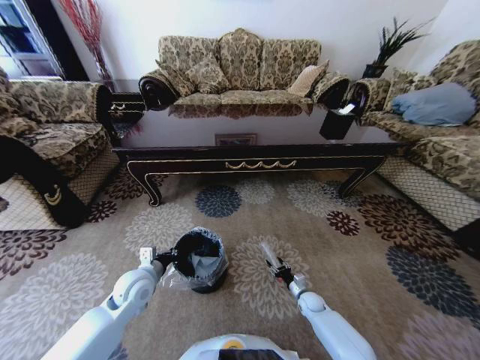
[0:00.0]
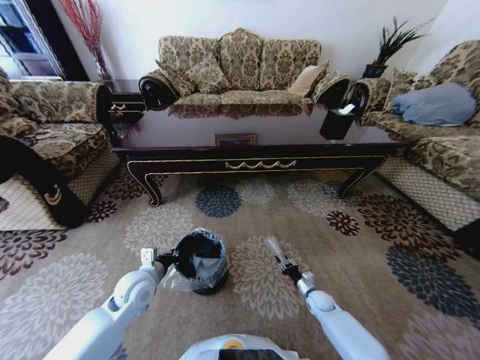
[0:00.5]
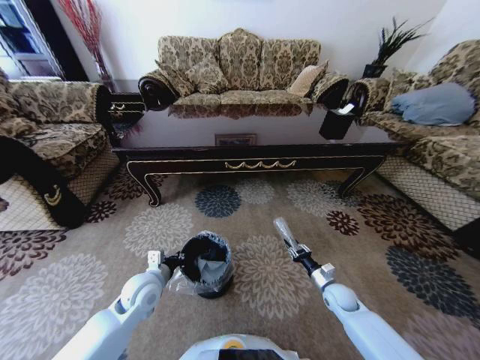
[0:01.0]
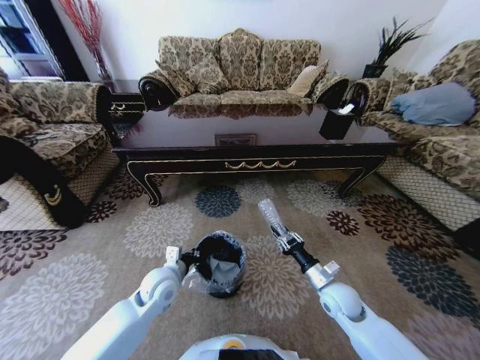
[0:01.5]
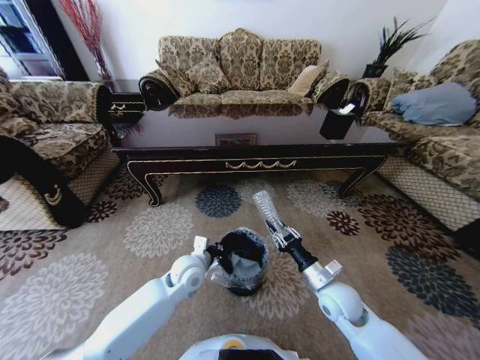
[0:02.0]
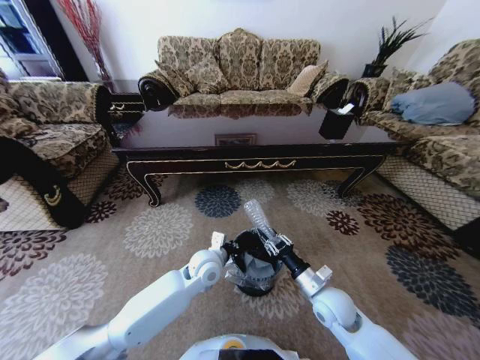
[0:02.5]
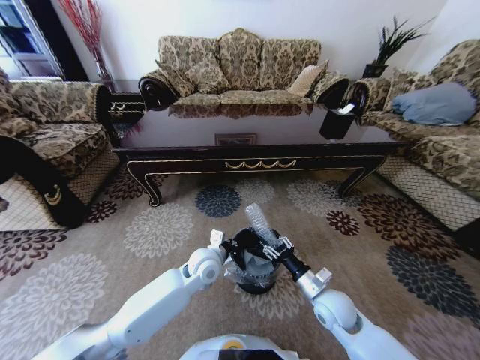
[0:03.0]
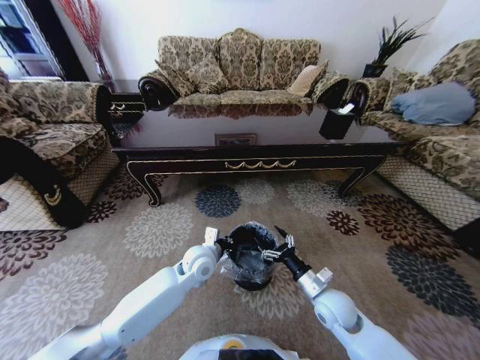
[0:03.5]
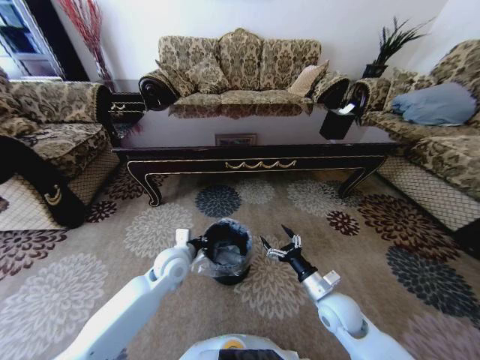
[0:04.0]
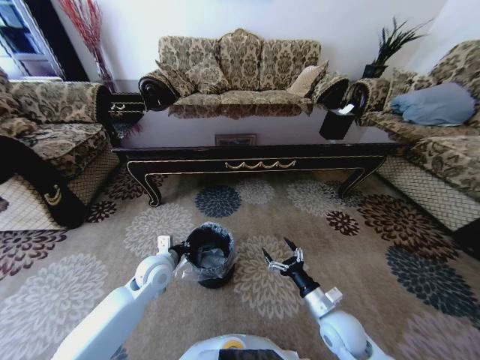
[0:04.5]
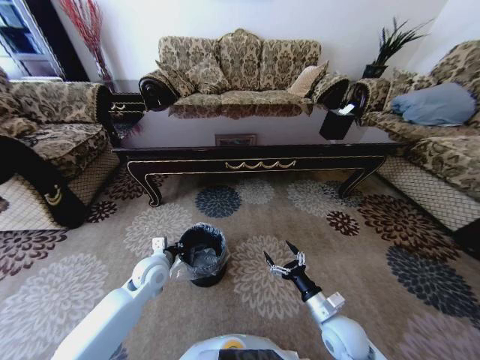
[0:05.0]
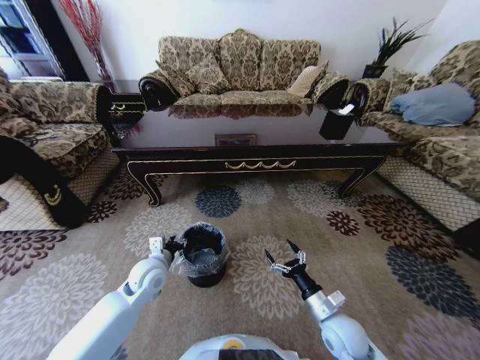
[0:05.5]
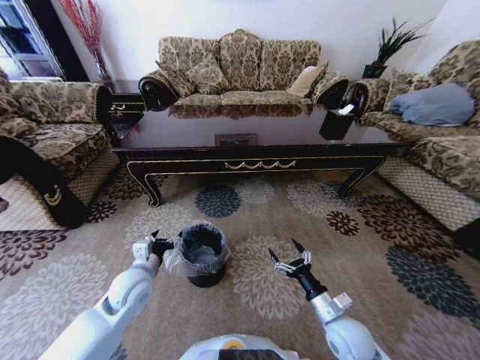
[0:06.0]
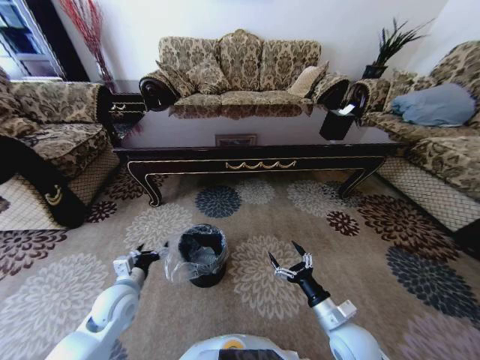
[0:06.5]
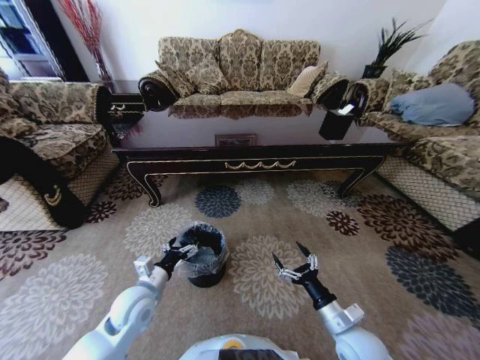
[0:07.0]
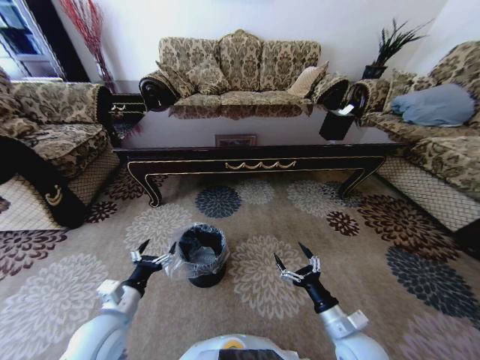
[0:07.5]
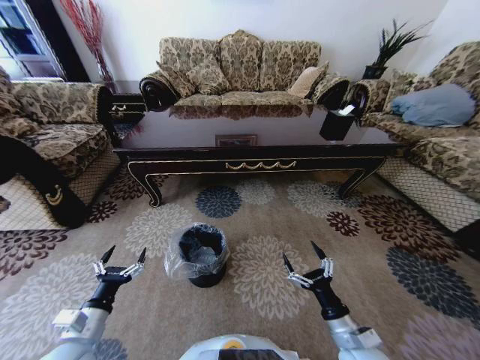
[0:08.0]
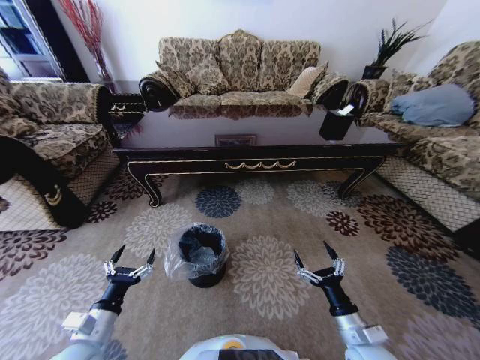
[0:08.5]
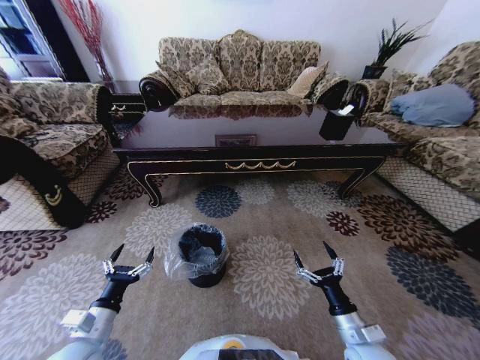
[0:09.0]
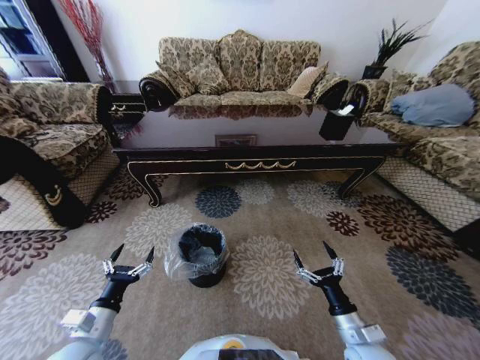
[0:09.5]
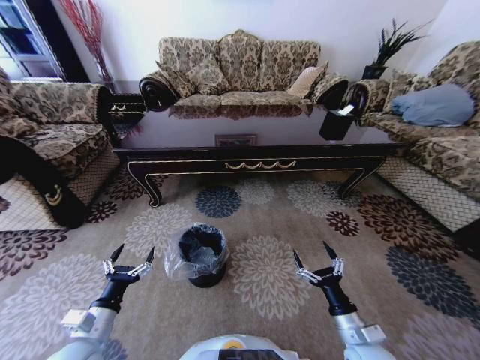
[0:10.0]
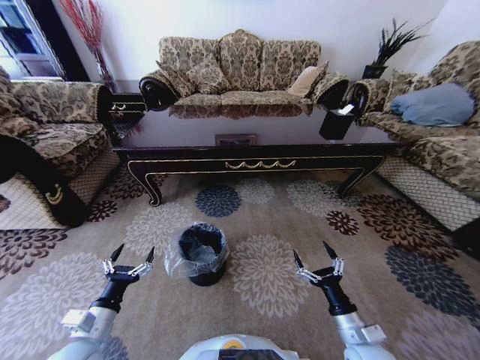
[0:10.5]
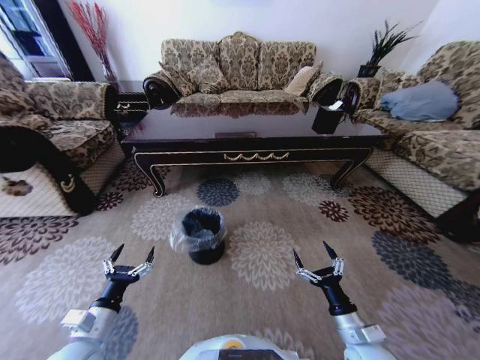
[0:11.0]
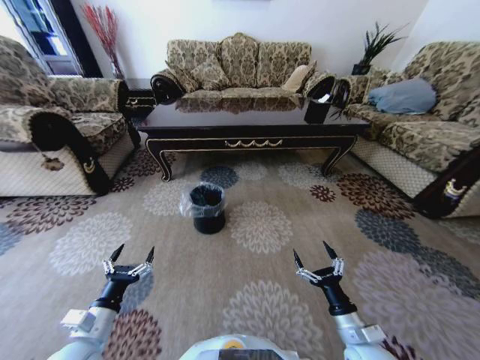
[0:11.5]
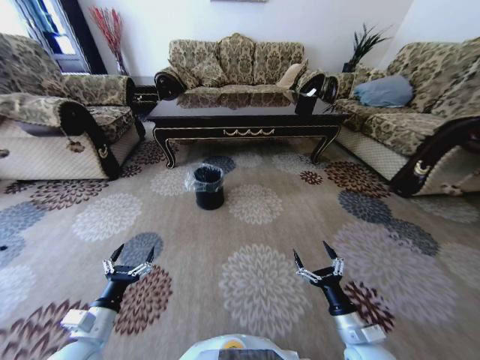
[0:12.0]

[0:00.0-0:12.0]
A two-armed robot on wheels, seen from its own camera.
Task of the whole recording: Move to the front of the table and pick up the trash from the floor, then place it into the trash bin.
0:00.0 to 0:02.0: The left gripper is displaced to the right by roughly 15 cm. The right gripper shifts some 25 cm upward.
0:02.0 to 0:04.0: The right gripper opens up.
0:04.0 to 0:06.0: The right gripper shifts approximately 5 cm backward. Meanwhile the left gripper goes some 10 cm to the left and backward, and opens up.
0:06.0 to 0:08.0: The left gripper moves backward and to the left, approximately 15 cm.
0:08.0 to 0:10.0: There are only small adjustments of the grippers.

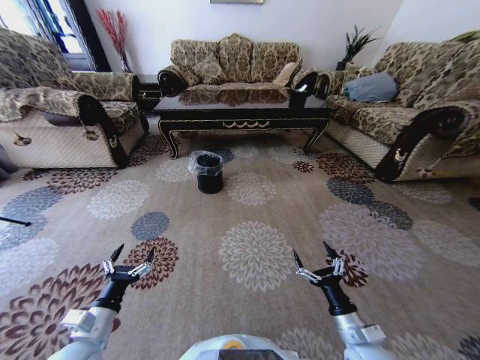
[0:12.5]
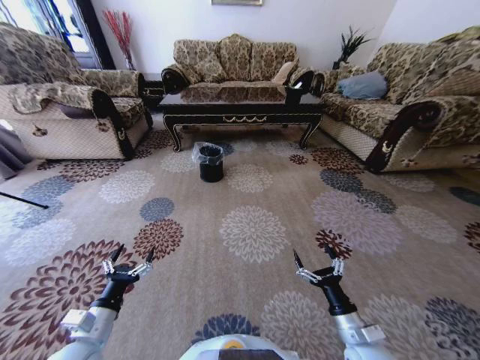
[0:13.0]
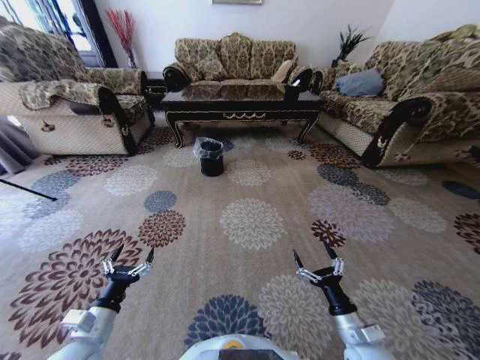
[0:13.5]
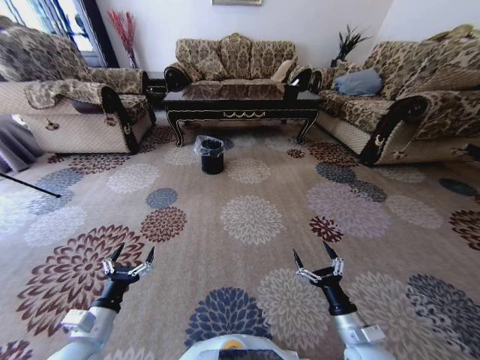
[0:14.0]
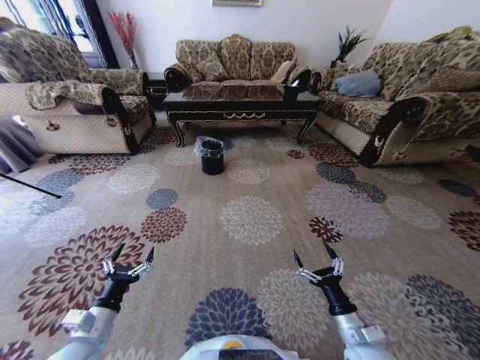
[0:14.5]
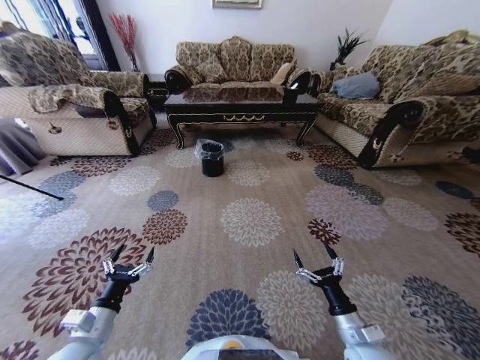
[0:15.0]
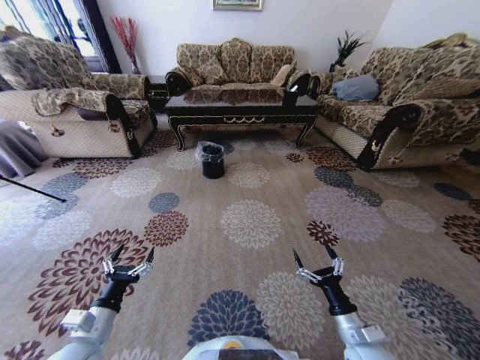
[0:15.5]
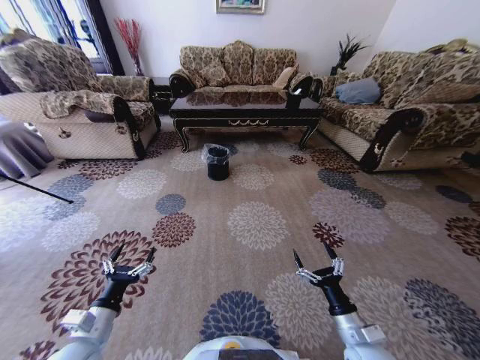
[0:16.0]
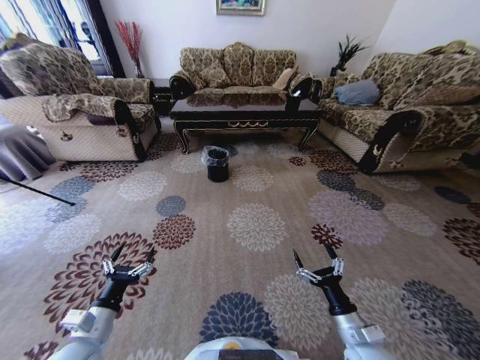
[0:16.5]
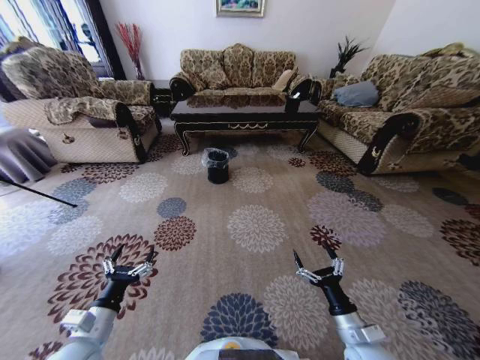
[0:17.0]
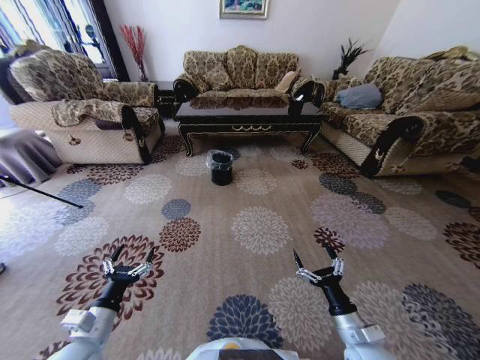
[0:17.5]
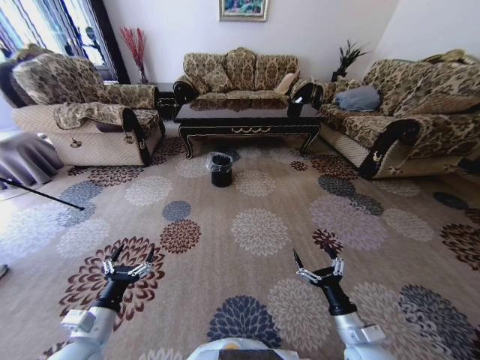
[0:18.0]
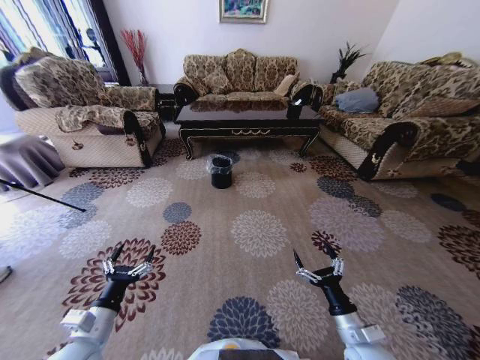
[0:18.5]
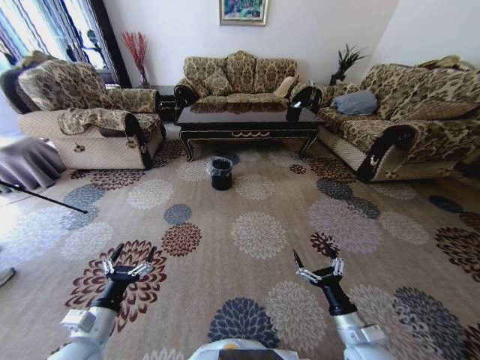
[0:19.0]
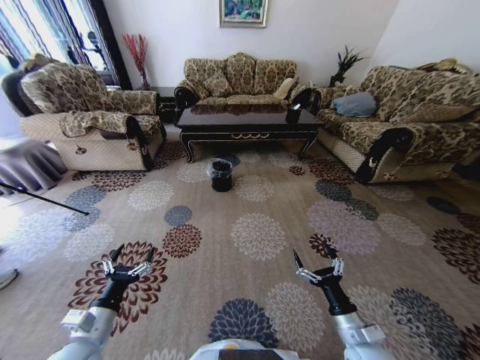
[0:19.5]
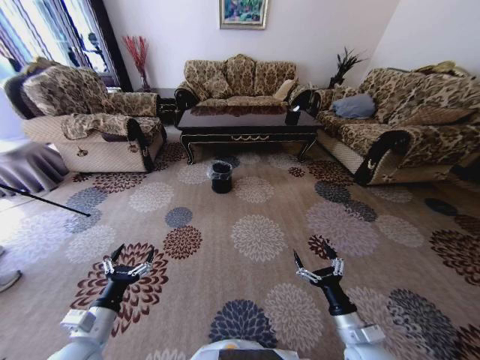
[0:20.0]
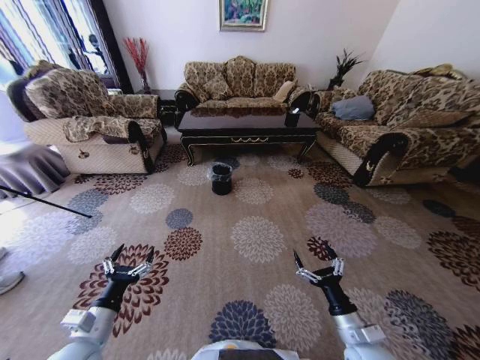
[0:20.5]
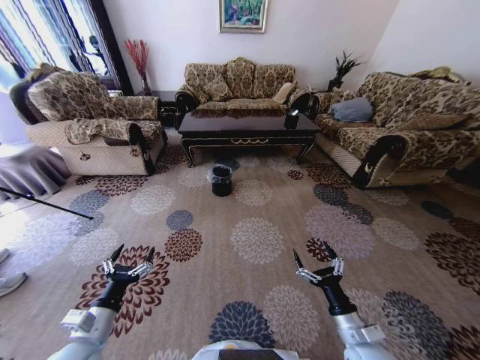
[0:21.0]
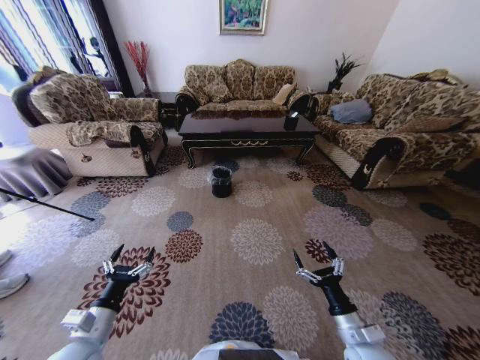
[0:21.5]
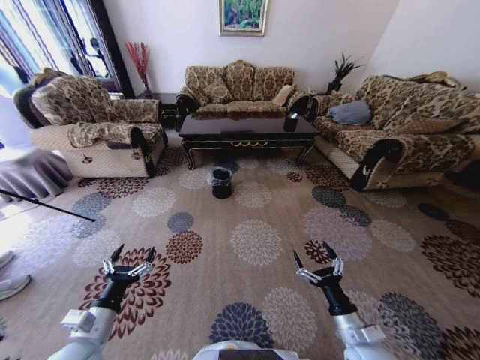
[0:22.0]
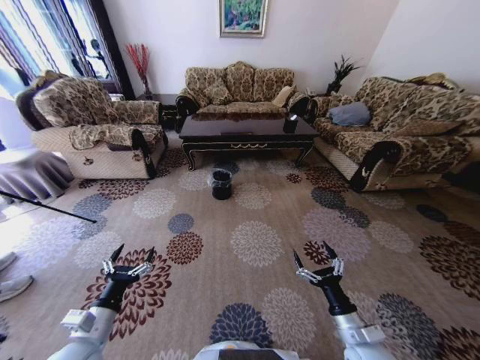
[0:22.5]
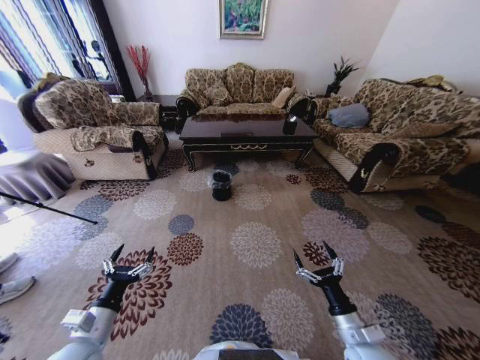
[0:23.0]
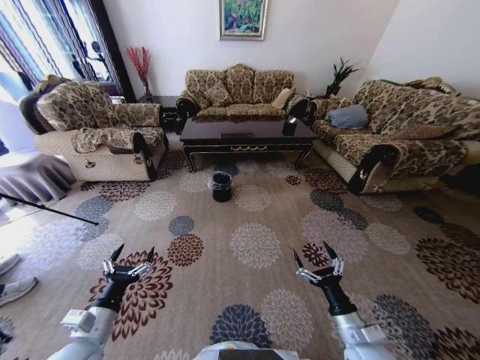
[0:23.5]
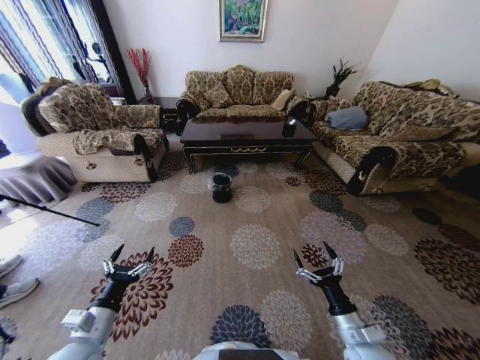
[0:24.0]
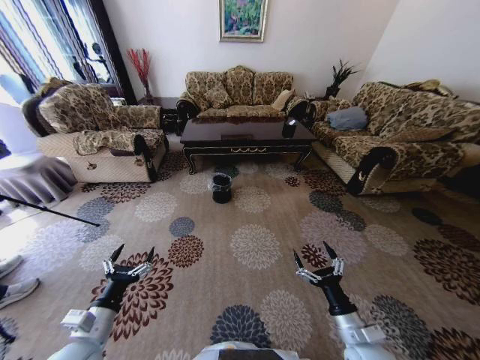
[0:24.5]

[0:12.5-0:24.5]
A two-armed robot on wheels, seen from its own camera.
Task of the whole recording: Move to the front of the table and pick up the trash from the floor, then place it into the trash bin.
0:22.5 to 0:24.5: Neither gripper changes place.

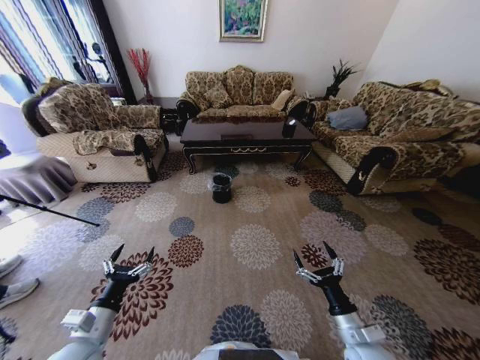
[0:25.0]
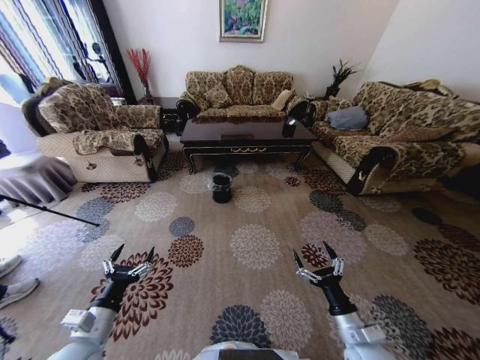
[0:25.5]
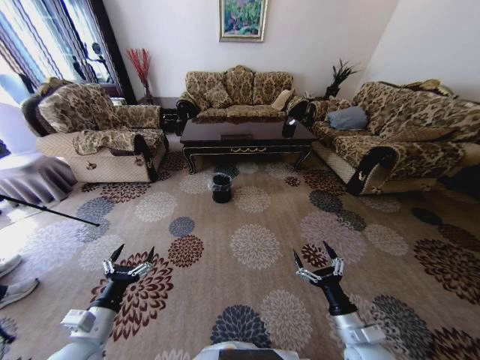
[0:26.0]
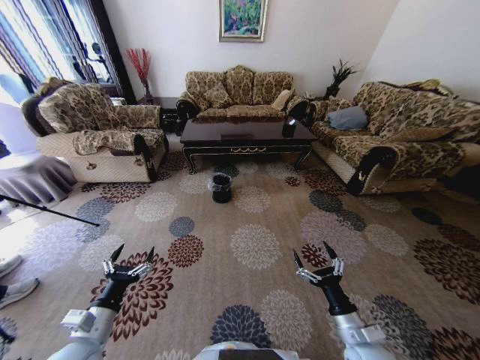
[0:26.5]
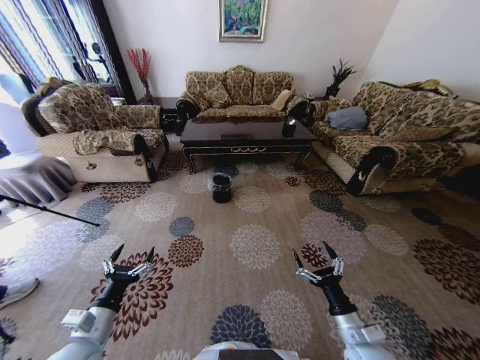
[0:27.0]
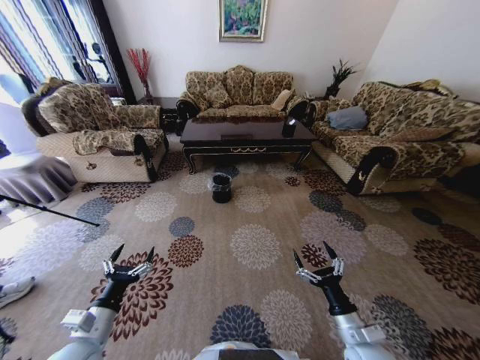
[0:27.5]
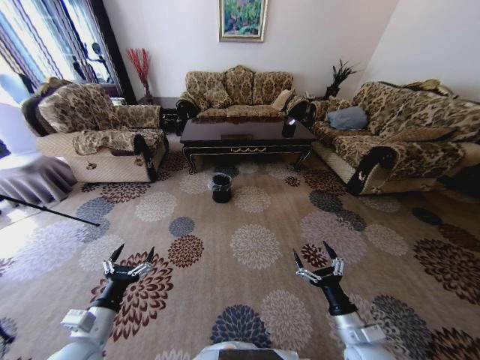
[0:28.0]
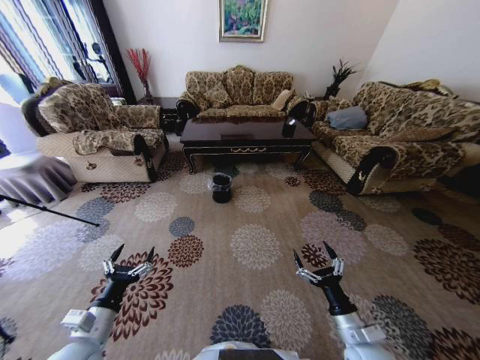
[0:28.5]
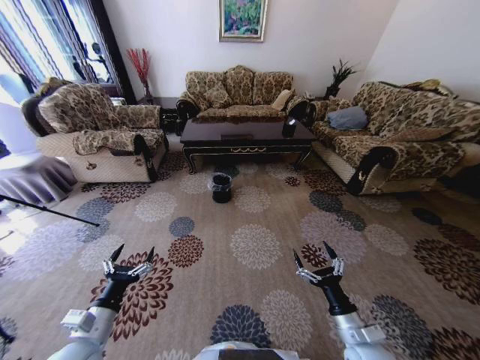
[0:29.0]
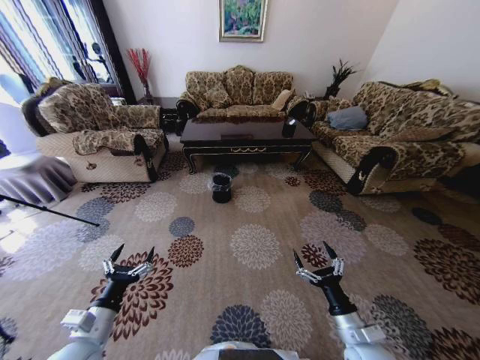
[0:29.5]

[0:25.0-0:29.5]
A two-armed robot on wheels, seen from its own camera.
Task of the whole recording: Move to the front of the table and pick up the trash from the floor, then place it into the trash bin.
0:25.0 to 0:29.5: Both grippers stay put.
